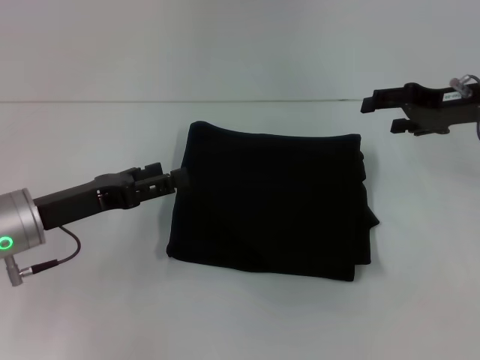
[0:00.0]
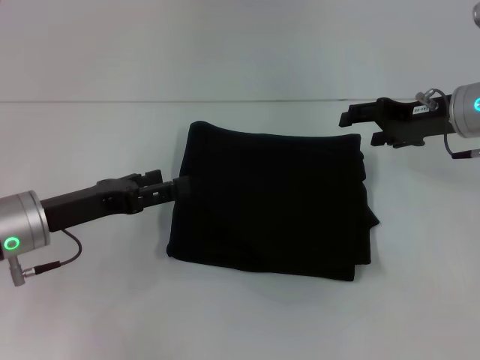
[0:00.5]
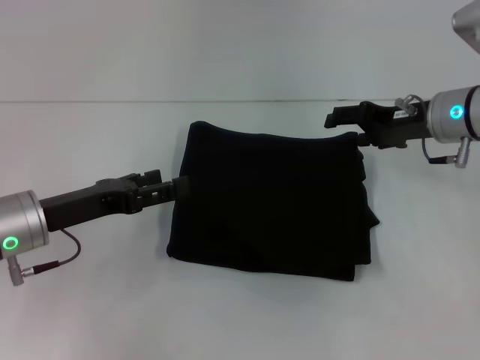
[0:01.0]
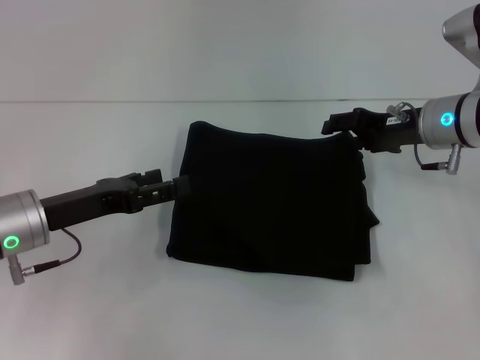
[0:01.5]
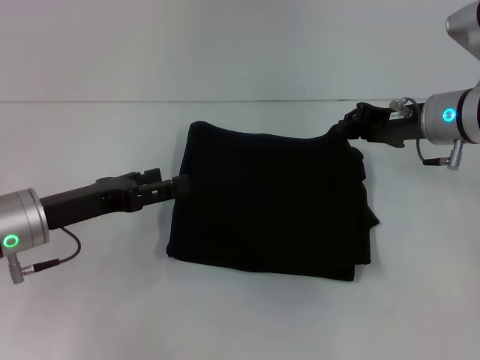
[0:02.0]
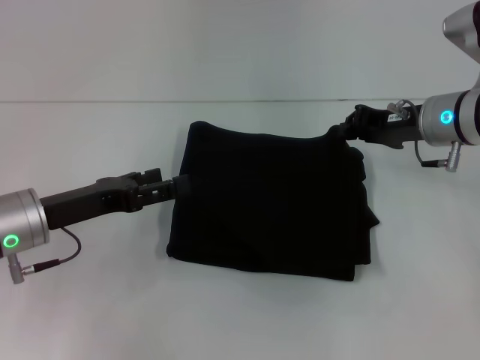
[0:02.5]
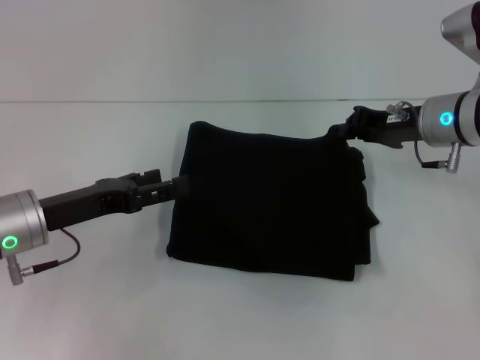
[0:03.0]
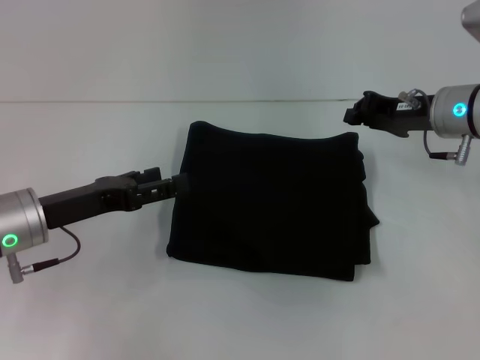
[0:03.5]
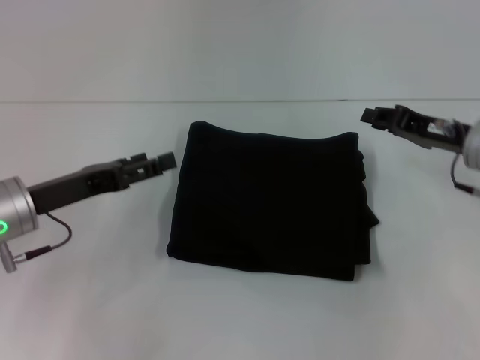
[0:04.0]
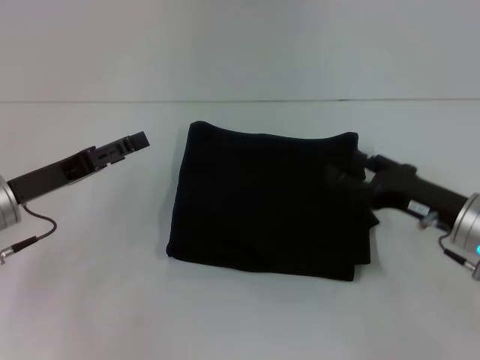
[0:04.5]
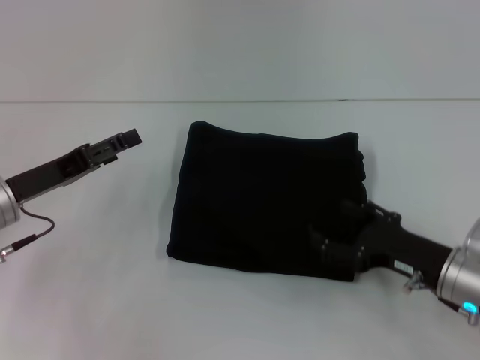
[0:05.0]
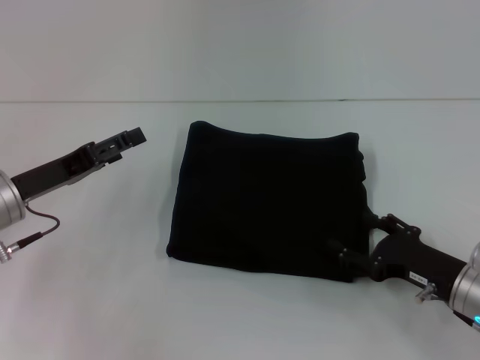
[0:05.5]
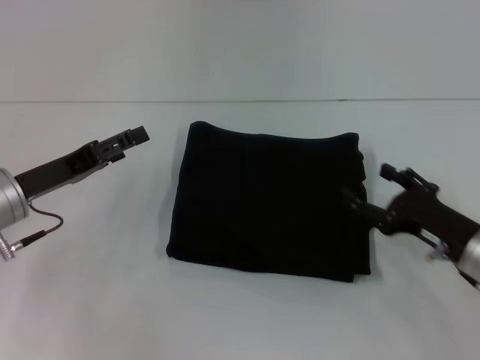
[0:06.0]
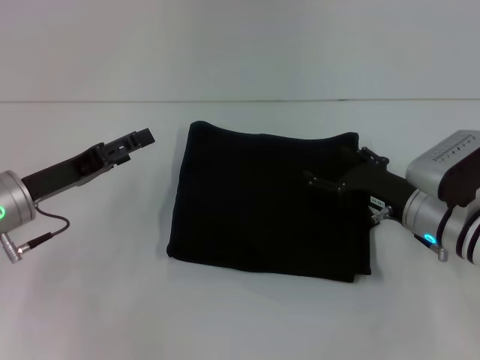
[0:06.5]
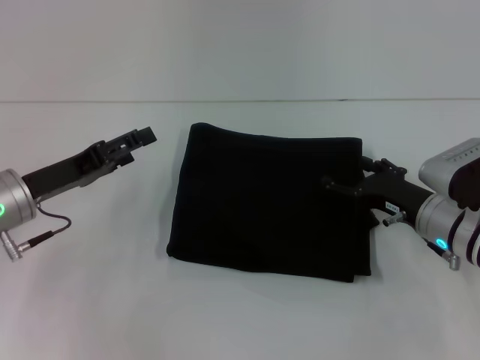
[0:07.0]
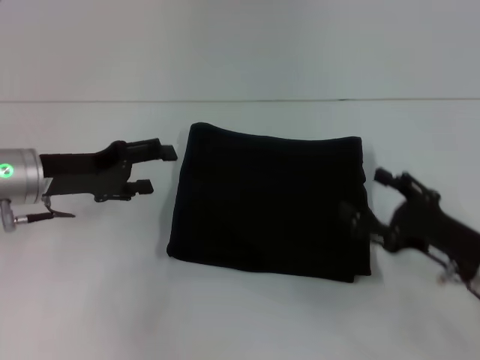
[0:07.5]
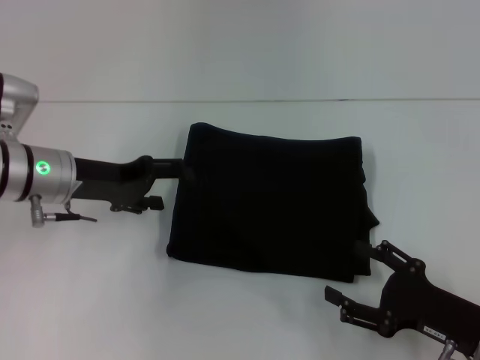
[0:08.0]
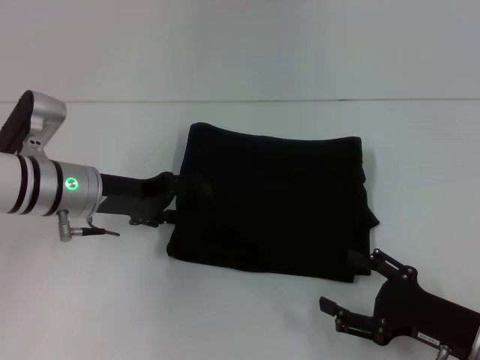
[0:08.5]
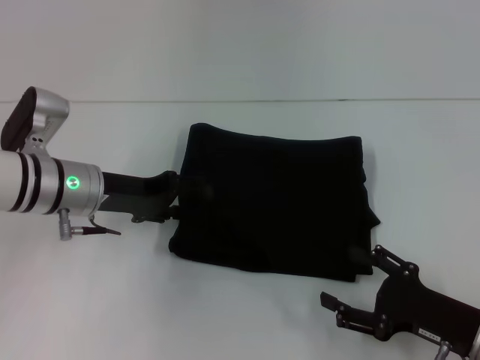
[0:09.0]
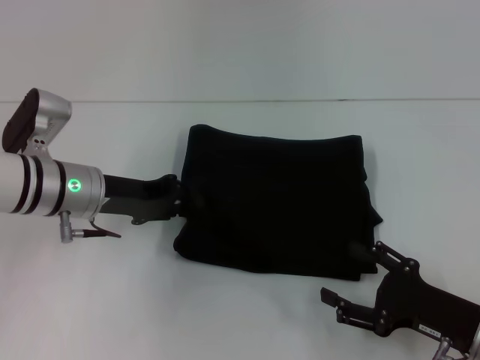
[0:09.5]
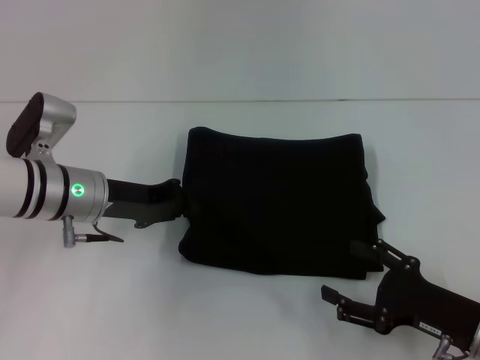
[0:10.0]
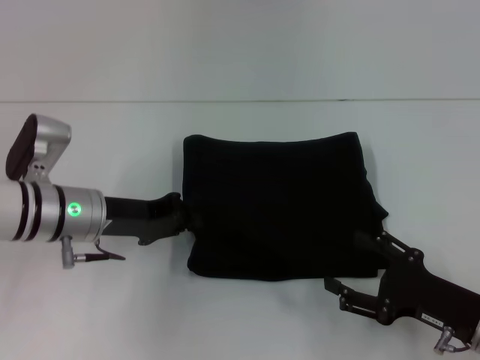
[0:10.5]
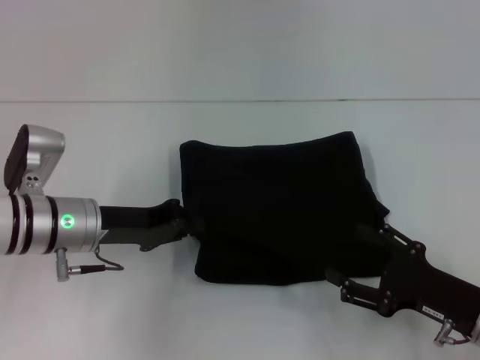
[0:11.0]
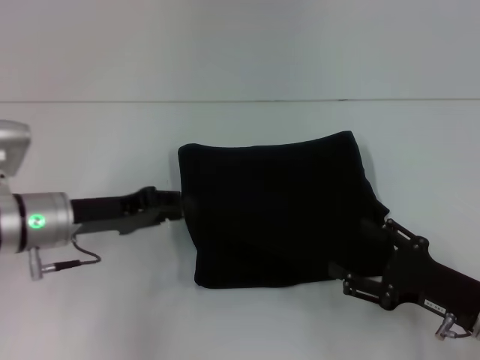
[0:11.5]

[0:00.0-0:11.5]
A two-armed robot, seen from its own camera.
0:00.0 to 0:02.0: The right gripper heads to the left, covering approximately 5 cm.
0:02.0 to 0:04.0: The right gripper ends up approximately 5 cm from where it was, and closes its fingers.
0:04.0 to 0:06.0: The right gripper goes about 15 cm backward and downward, and opens up.
0:06.0 to 0:07.5: The right gripper travels forward and back again, some 5 cm each way.
0:07.5 to 0:09.5: The left gripper moves to the right, about 5 cm, and closes up. Meanwhile the right gripper moves about 5 cm.
0:09.5 to 0:11.5: The left gripper closes up.

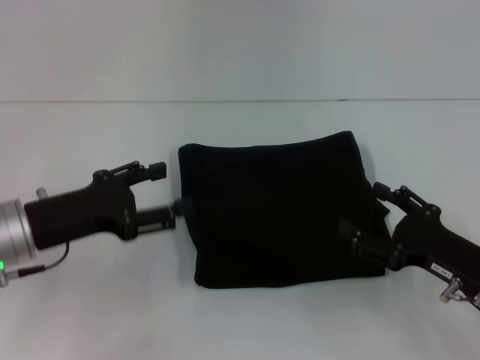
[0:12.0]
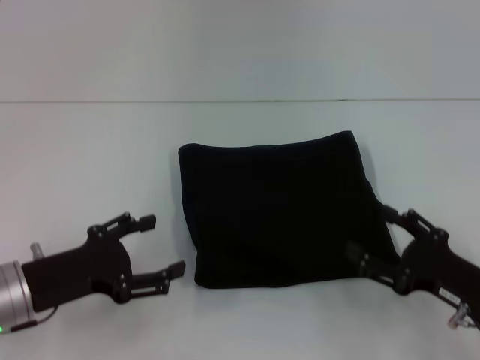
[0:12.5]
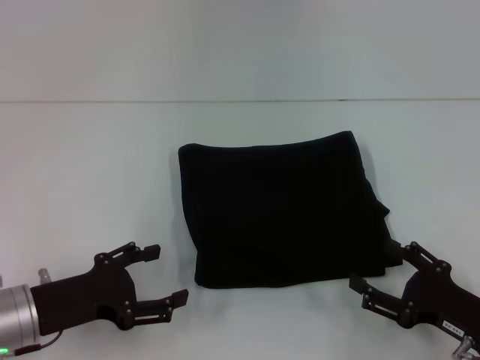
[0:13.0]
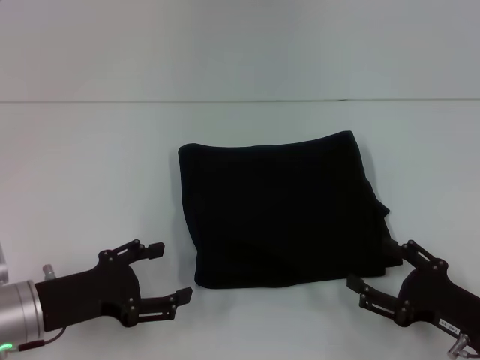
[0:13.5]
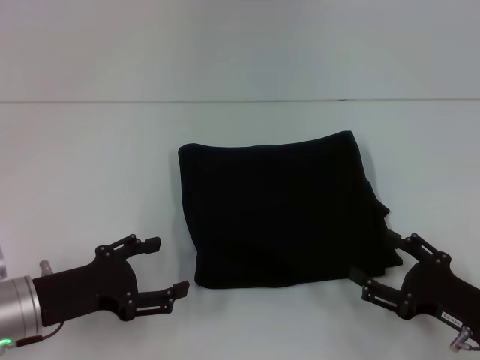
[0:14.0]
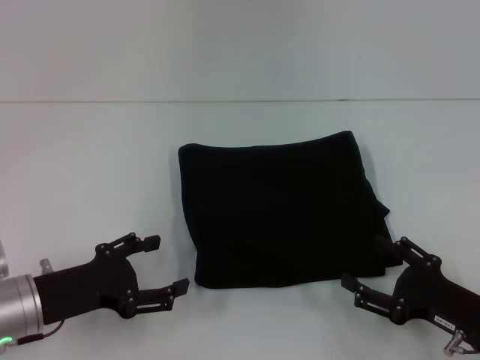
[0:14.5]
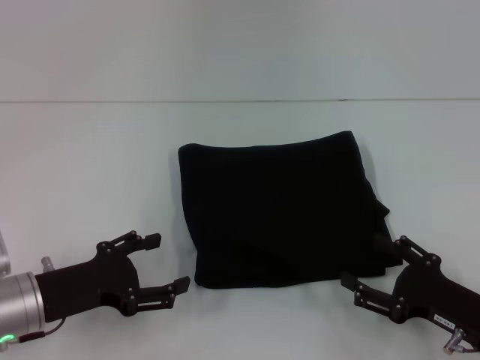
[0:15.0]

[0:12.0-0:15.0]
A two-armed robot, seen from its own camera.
0:12.0 to 0:13.5: The right gripper shifts by approximately 5 cm. Meanwhile the left gripper travels downward by some 5 cm, and opens up.
0:13.5 to 0:15.0: Neither gripper changes place.

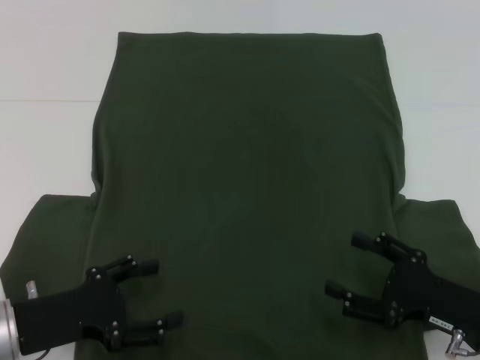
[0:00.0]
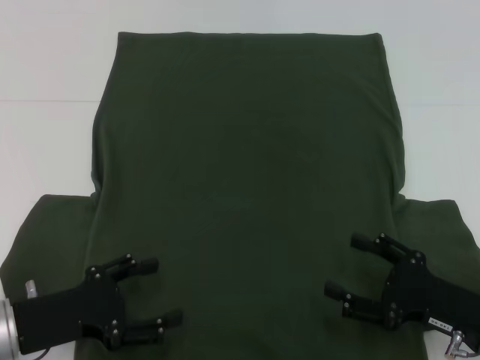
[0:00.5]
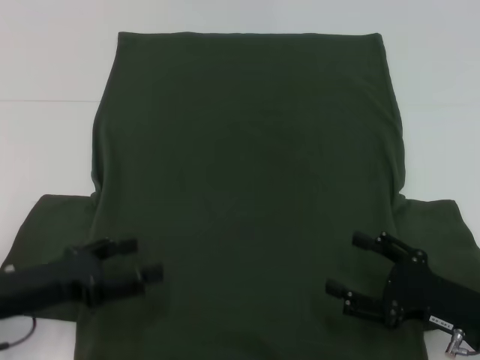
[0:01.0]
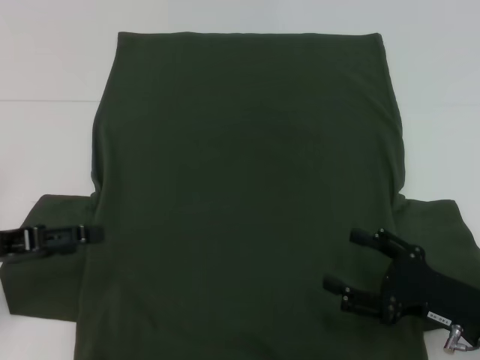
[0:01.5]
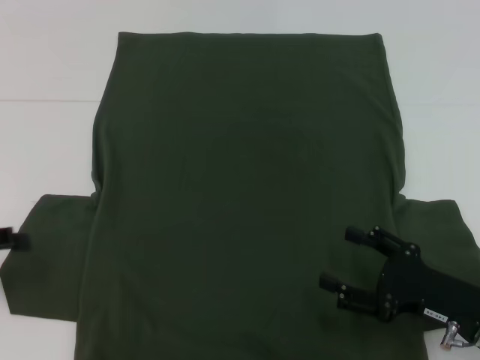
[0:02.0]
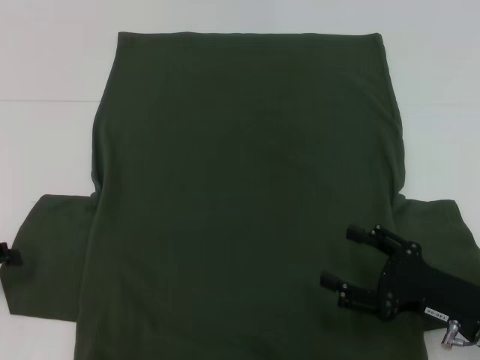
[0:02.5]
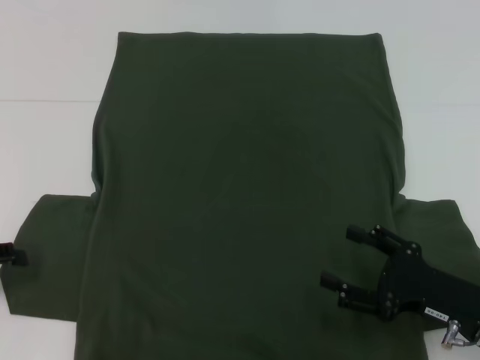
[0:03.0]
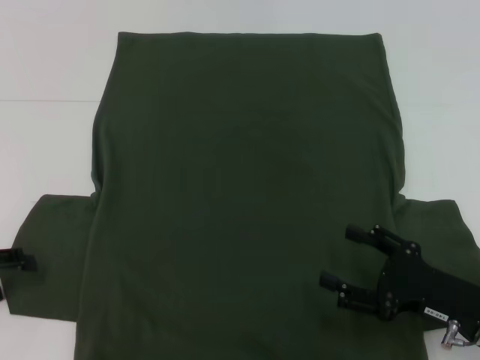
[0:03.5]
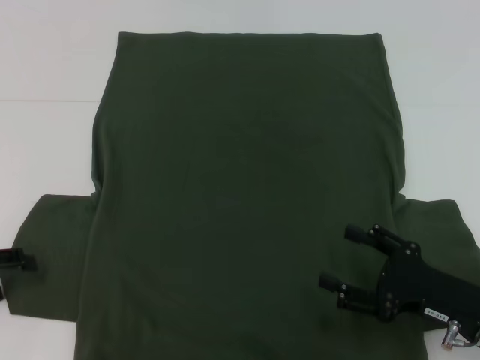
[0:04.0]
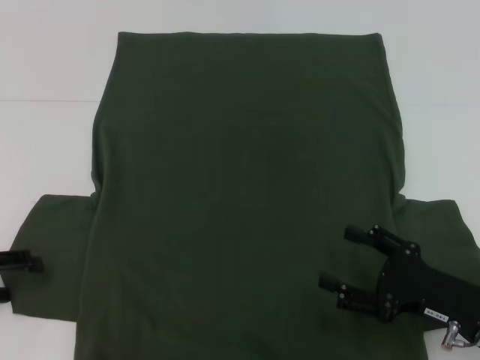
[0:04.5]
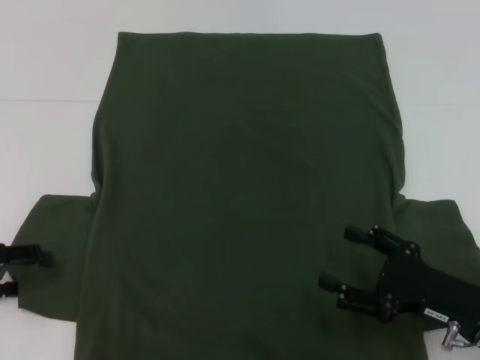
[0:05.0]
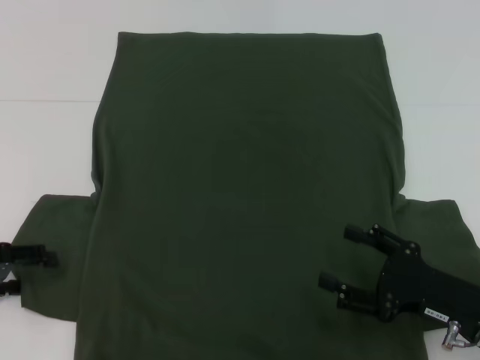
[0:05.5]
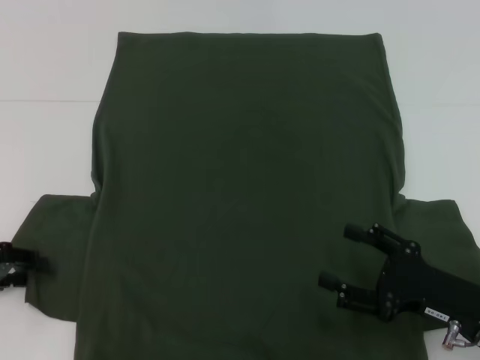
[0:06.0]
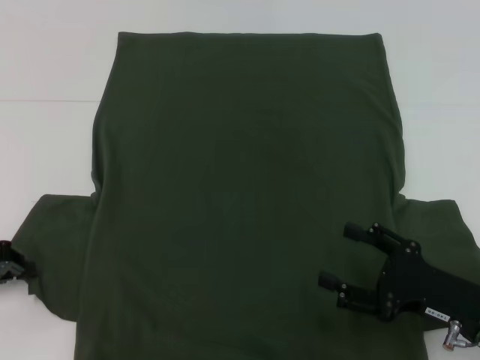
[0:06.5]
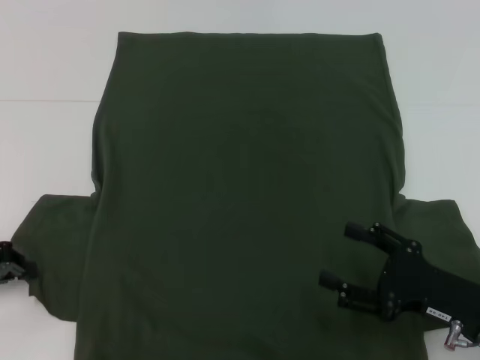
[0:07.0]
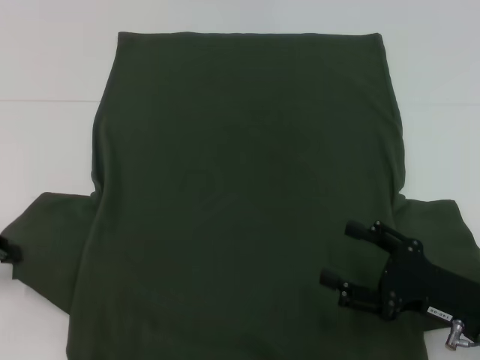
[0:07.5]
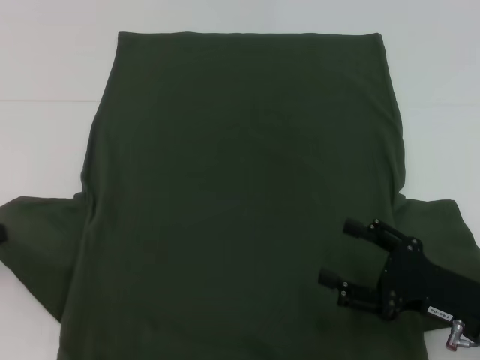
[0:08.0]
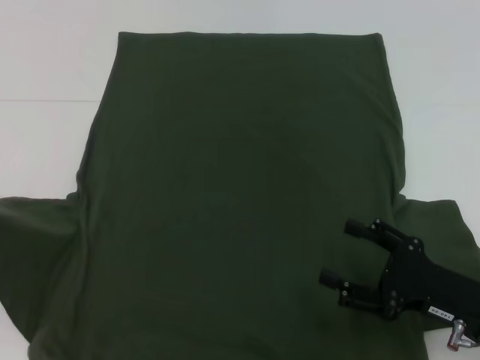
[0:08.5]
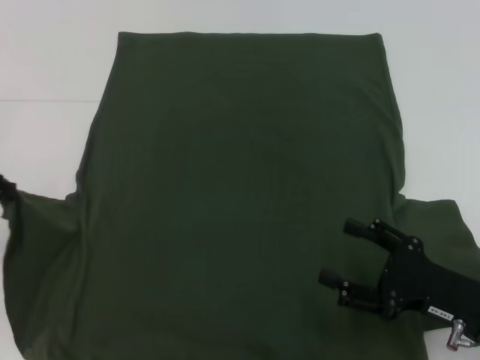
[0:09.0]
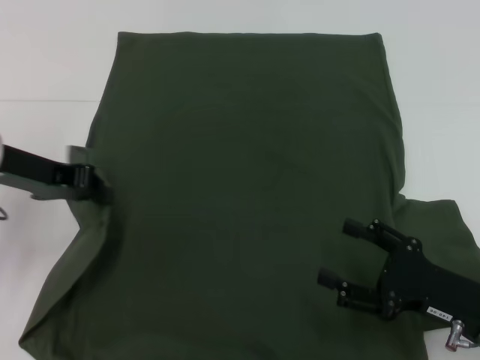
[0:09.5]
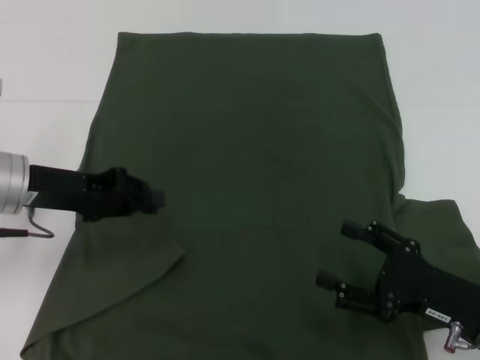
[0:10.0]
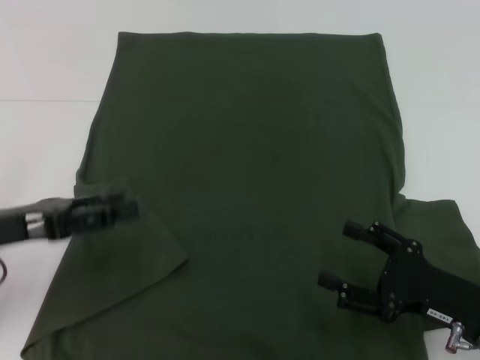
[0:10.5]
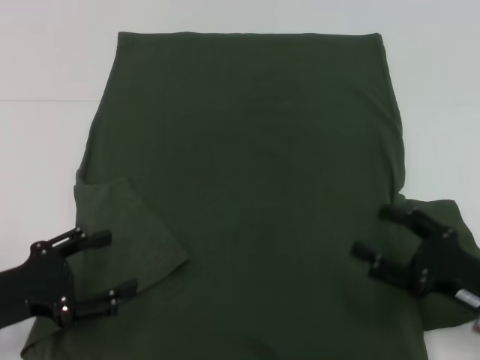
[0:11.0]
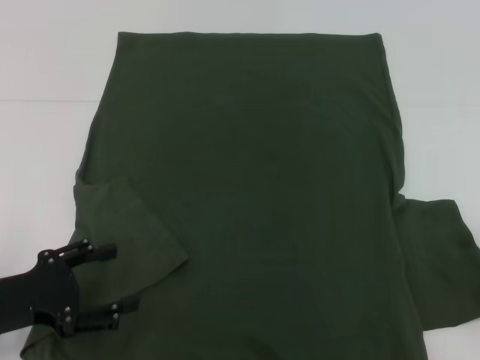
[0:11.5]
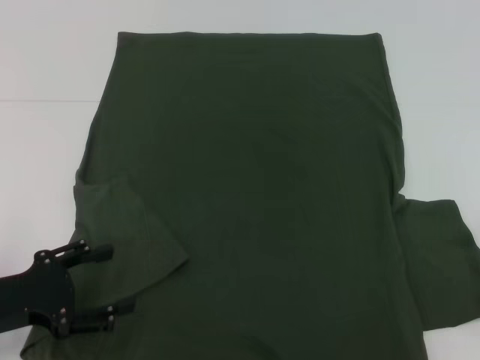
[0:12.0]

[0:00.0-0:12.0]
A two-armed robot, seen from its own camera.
0:00.0 to 0:02.0: The left gripper shifts roughly 15 cm to the left and upward.
0:04.0 to 0:06.0: The grippers move only a little.
0:06.0 to 0:08.0: The left gripper is displaced upward by approximately 5 cm, and closes its fingers.
0:08.0 to 0:10.0: The left gripper moves to the right, about 10 cm.
0:10.0 to 0:12.0: The left gripper is displaced backward and downward by roughly 15 cm, and opens its fingers; the right gripper travels to the right and upward by some 20 cm.
